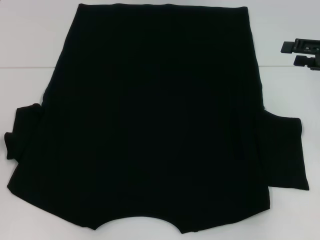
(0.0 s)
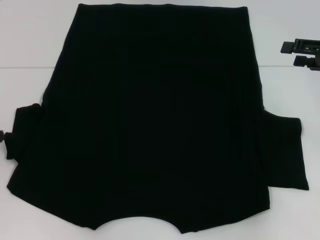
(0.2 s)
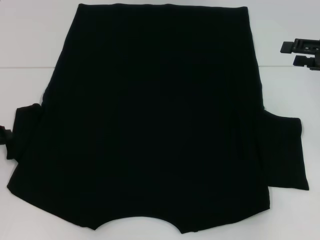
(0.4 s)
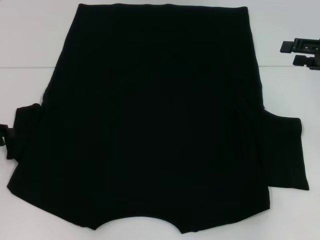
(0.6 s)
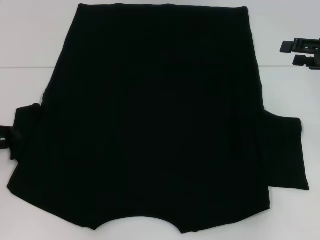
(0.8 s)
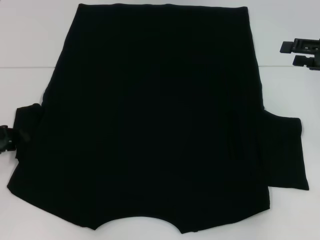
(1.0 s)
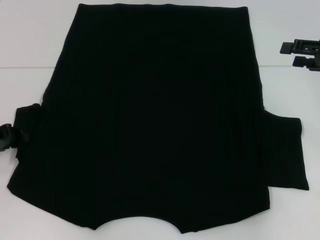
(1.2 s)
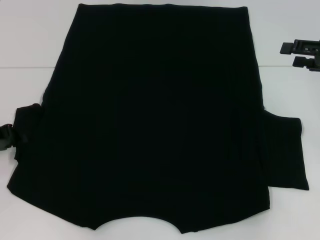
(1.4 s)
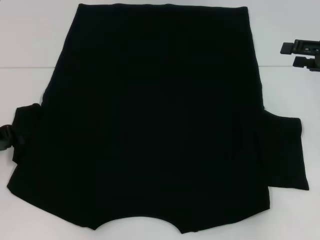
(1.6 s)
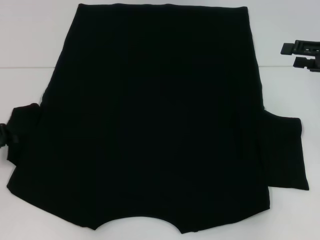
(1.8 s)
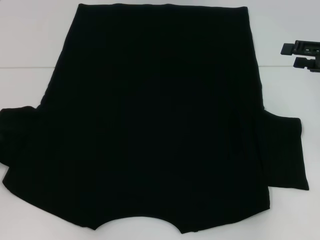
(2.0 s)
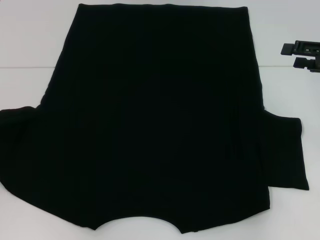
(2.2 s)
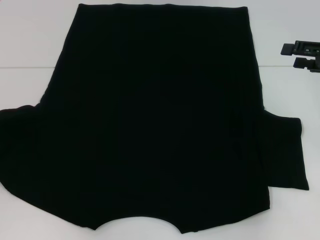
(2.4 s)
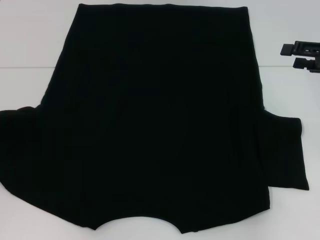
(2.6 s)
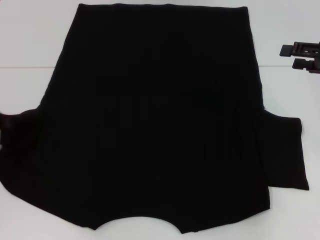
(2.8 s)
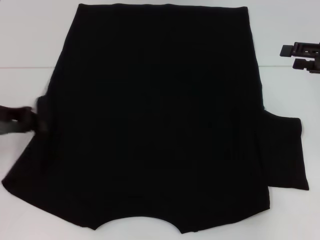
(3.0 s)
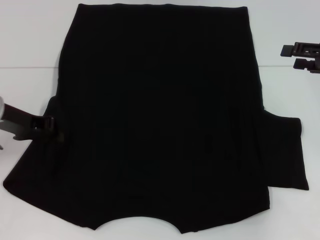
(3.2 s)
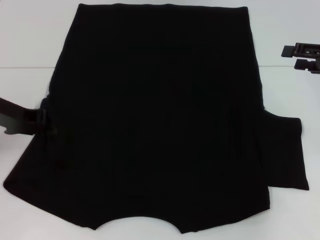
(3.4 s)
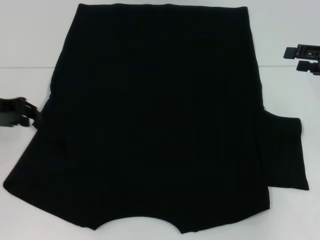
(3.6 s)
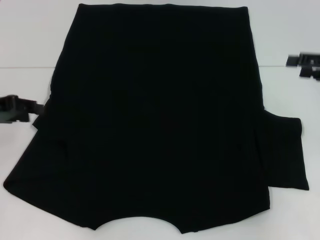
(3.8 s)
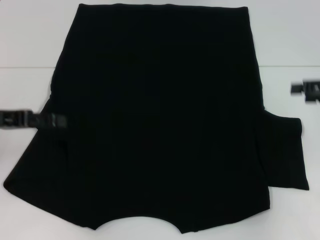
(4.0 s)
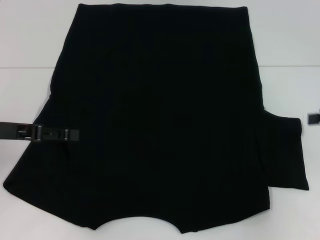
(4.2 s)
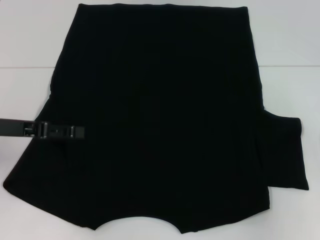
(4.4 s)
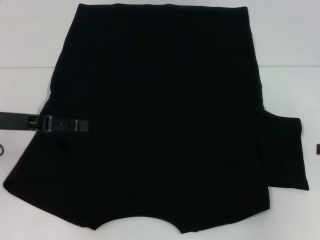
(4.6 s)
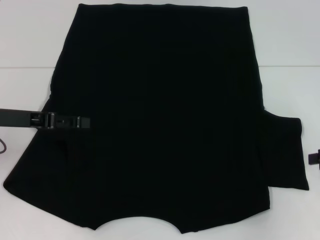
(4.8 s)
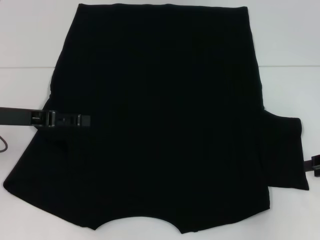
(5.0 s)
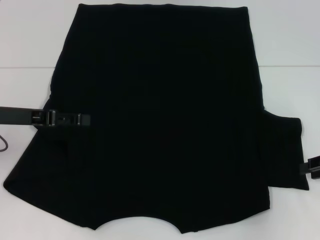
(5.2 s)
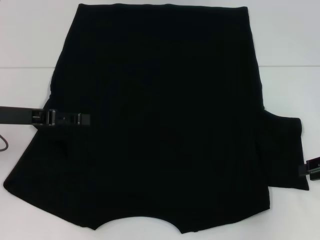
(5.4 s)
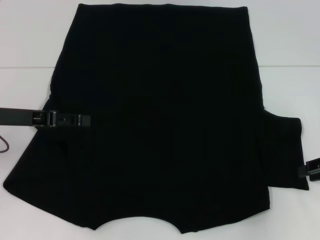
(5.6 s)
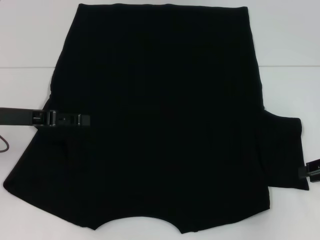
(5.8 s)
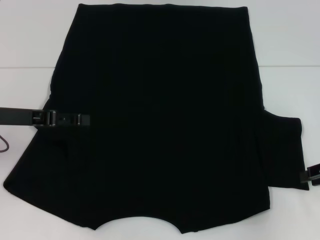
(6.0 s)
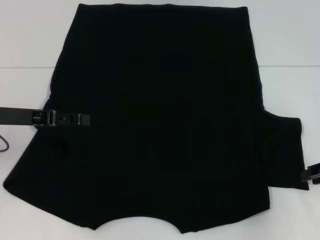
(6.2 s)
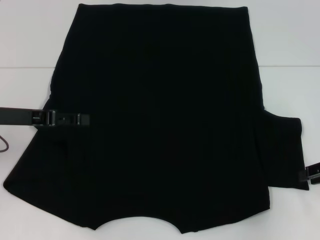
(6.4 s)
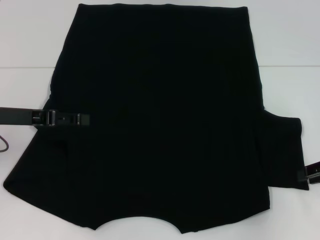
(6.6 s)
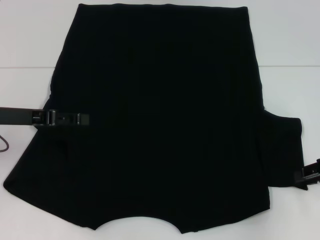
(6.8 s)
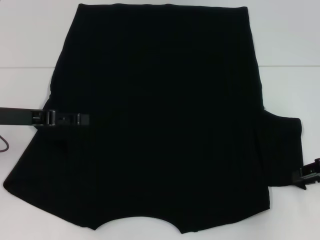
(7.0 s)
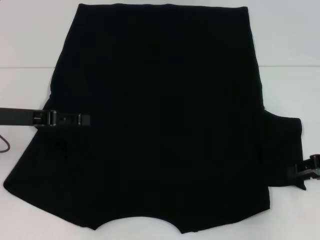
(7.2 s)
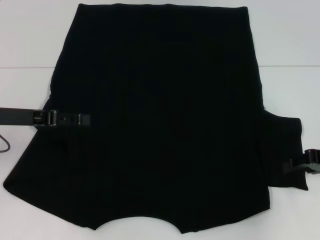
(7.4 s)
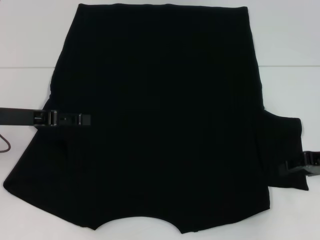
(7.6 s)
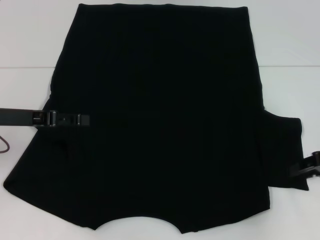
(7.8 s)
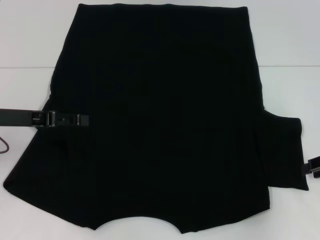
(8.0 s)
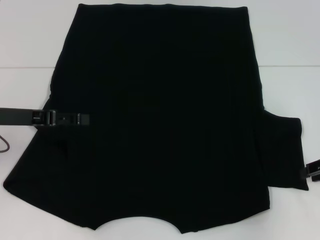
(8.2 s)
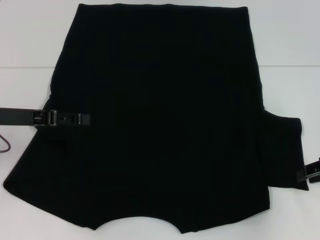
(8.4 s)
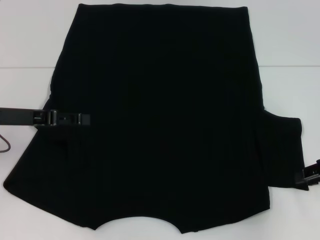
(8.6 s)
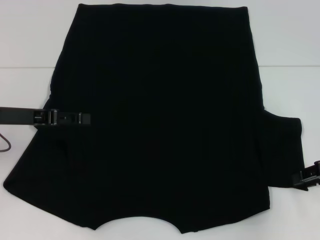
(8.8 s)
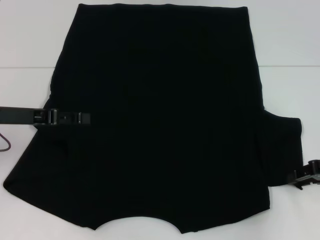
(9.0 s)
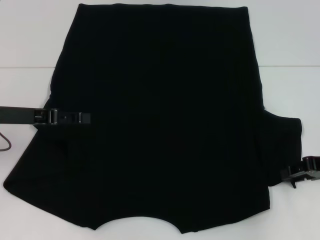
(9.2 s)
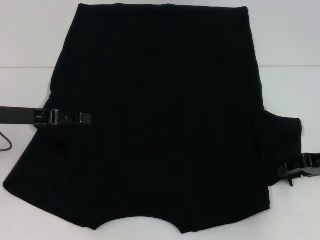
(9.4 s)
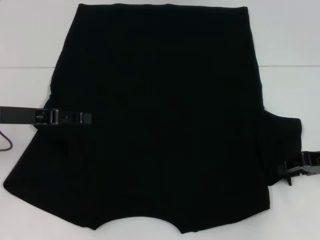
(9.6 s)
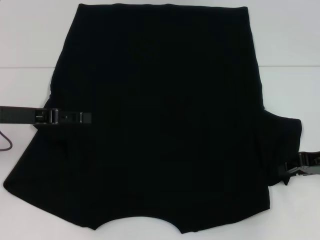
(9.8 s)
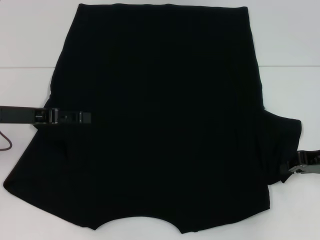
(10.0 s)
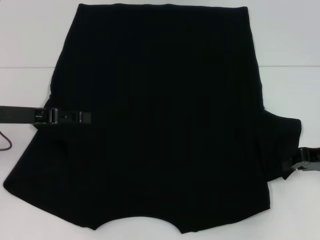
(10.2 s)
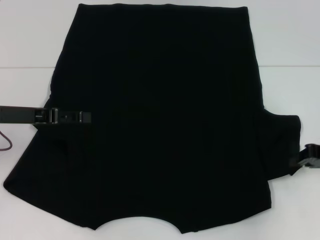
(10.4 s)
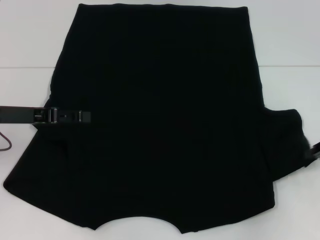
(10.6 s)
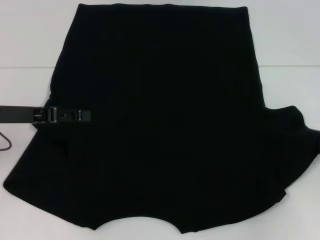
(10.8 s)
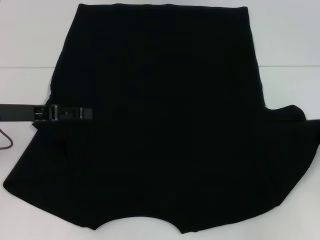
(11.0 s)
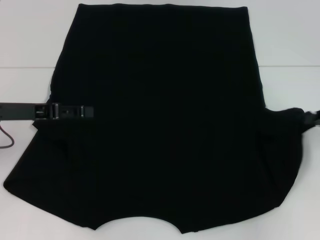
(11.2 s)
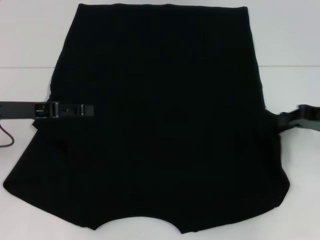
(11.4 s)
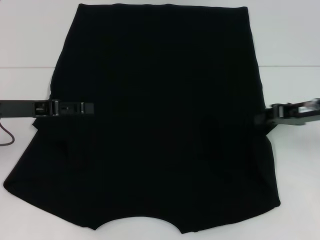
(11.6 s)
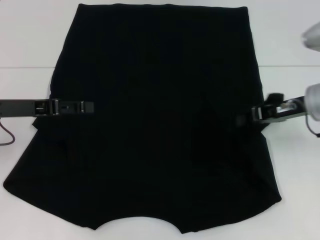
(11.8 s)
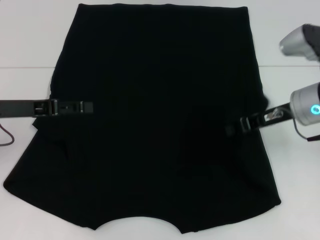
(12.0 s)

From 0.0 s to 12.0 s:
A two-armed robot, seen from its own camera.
Step, from 0.0 s to 3.6 s: Fold the bottom left sleeve with your left hand.
From 1.6 s to 3.0 s: The left gripper moves upward, some 5 cm.
From 3.0 s to 4.4 s: The right gripper goes some 10 cm backward and to the right, while the left gripper opens its fingers.
From 7.6 s to 9.0 s: The grippers stay close to where they were, moving slightly.
From 9.0 s to 10.4 s: The right gripper closes.
From 10.4 s to 12.0 s: The right gripper heads to the left and forward, covering roughly 10 cm.

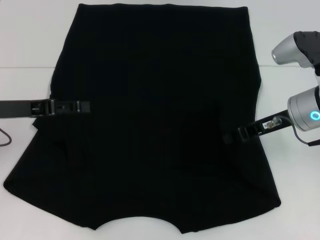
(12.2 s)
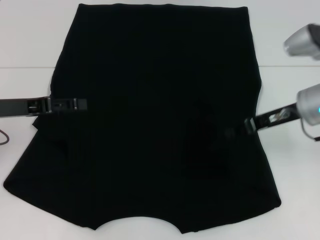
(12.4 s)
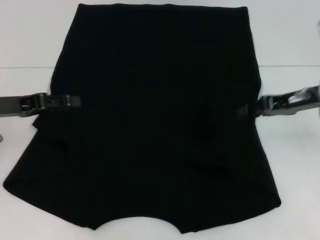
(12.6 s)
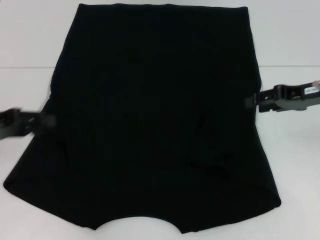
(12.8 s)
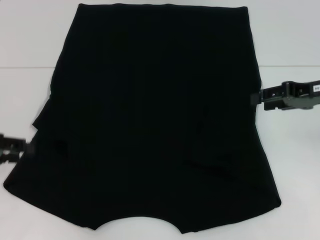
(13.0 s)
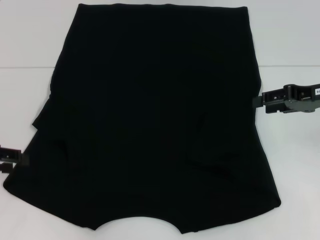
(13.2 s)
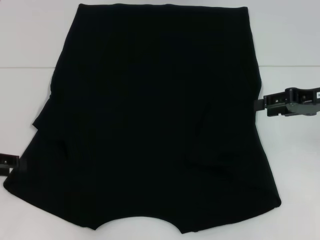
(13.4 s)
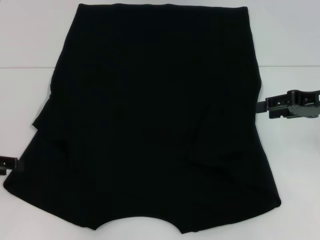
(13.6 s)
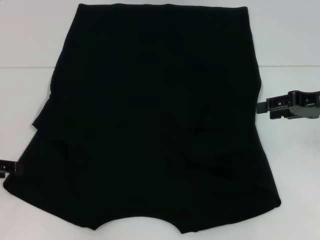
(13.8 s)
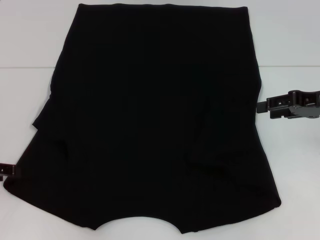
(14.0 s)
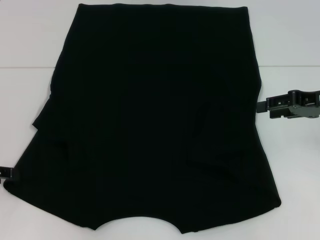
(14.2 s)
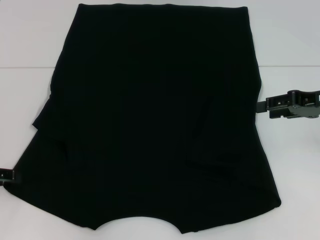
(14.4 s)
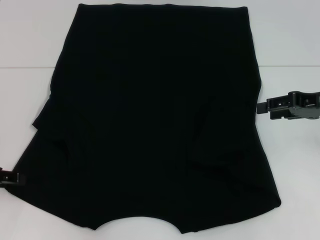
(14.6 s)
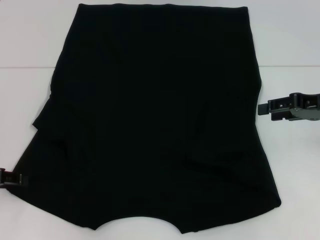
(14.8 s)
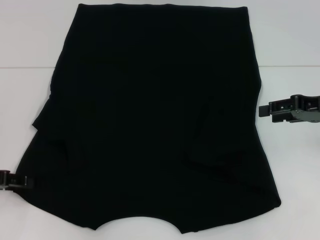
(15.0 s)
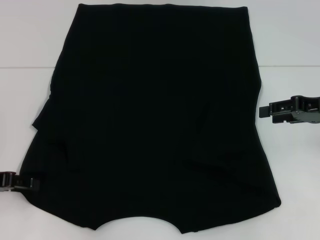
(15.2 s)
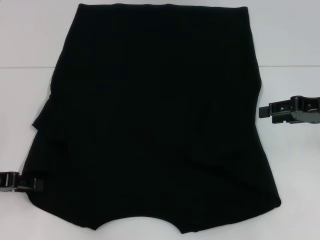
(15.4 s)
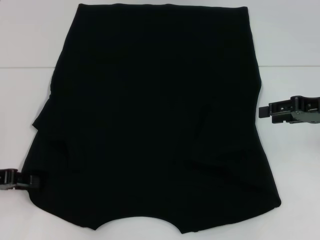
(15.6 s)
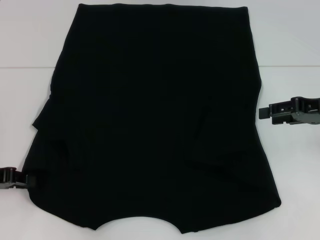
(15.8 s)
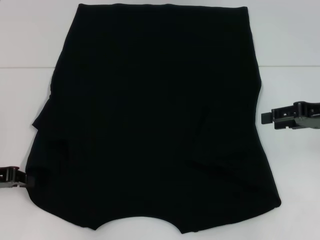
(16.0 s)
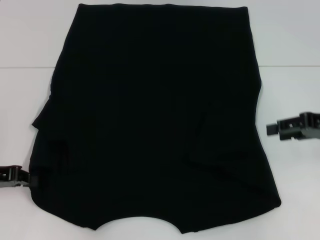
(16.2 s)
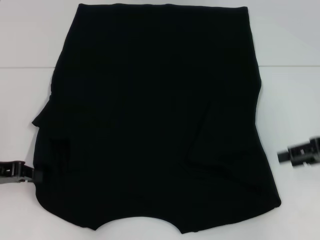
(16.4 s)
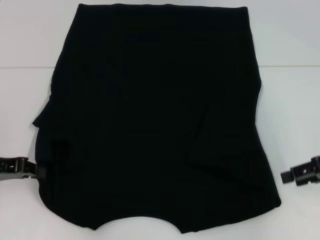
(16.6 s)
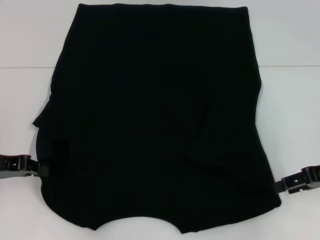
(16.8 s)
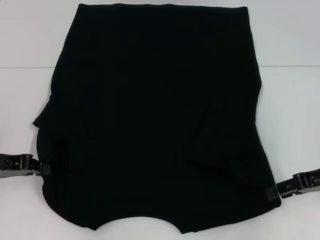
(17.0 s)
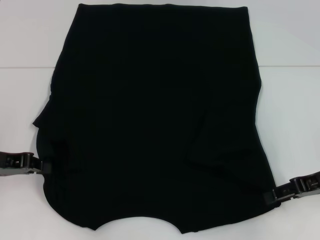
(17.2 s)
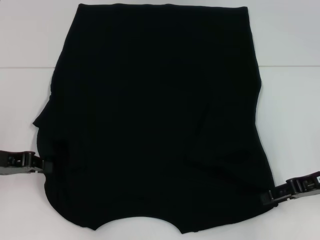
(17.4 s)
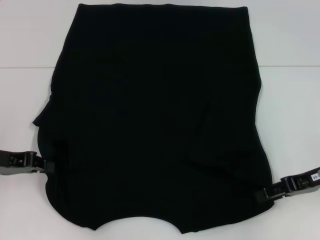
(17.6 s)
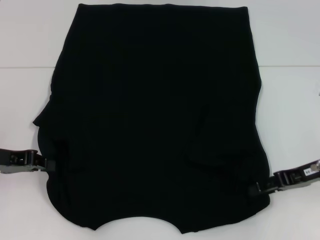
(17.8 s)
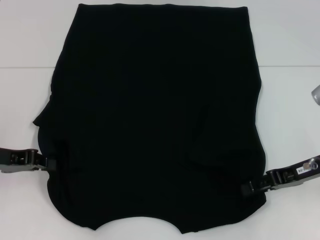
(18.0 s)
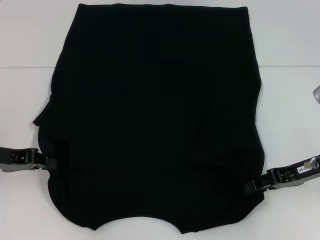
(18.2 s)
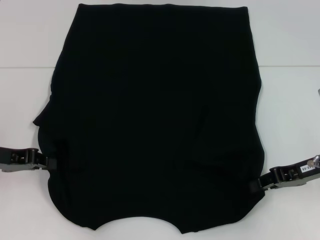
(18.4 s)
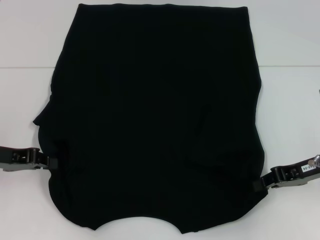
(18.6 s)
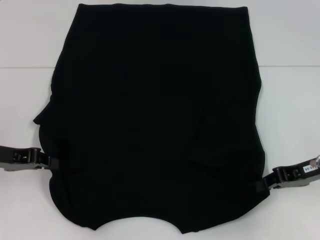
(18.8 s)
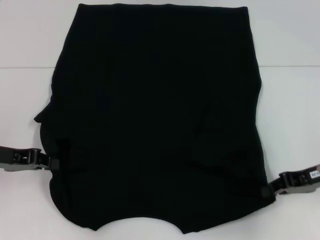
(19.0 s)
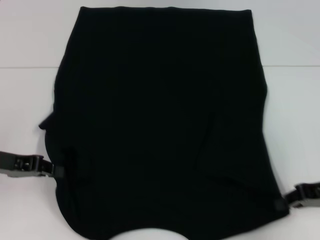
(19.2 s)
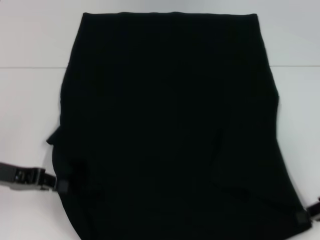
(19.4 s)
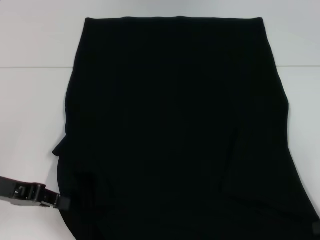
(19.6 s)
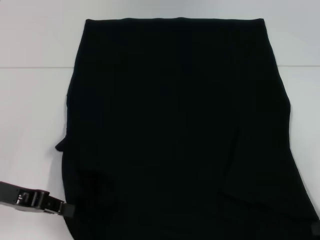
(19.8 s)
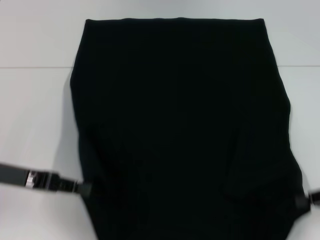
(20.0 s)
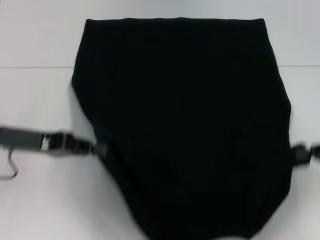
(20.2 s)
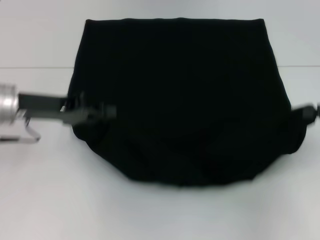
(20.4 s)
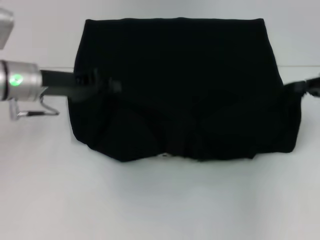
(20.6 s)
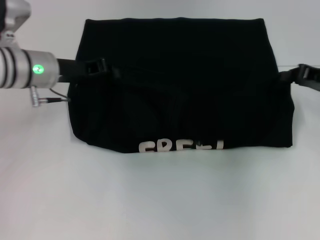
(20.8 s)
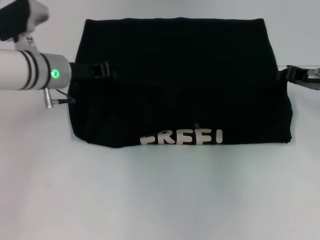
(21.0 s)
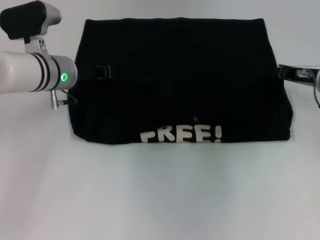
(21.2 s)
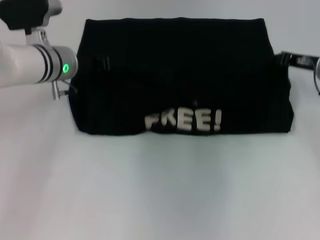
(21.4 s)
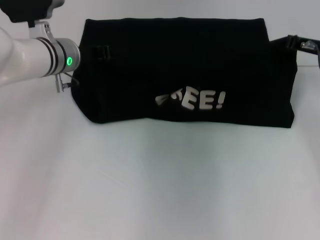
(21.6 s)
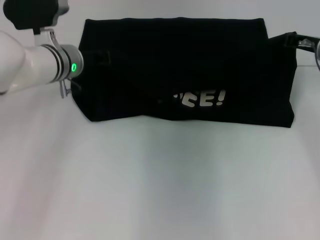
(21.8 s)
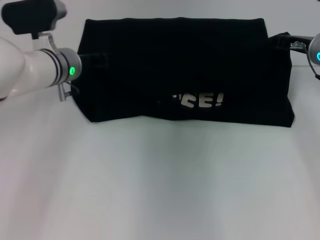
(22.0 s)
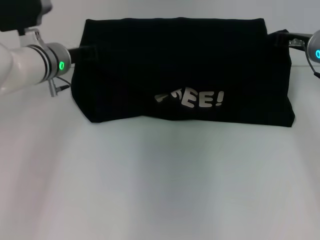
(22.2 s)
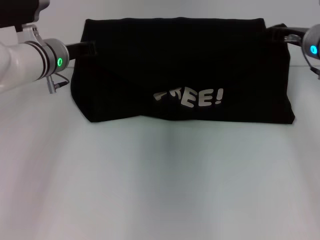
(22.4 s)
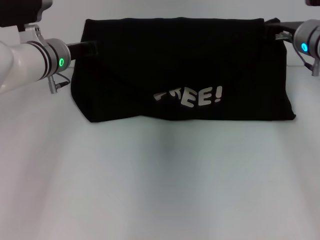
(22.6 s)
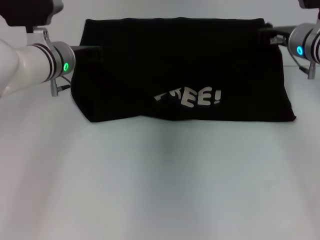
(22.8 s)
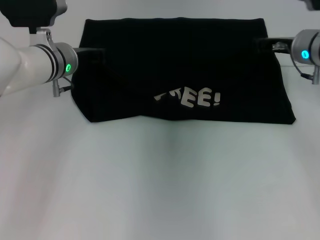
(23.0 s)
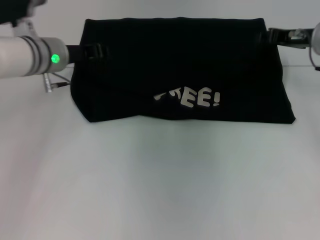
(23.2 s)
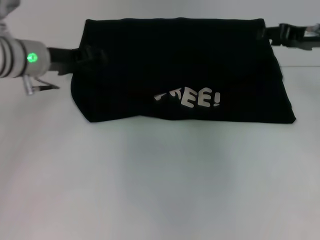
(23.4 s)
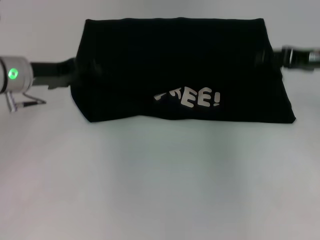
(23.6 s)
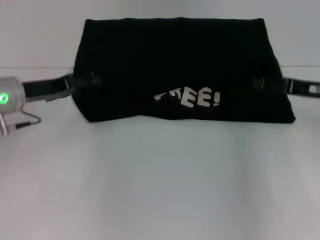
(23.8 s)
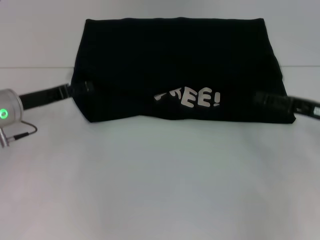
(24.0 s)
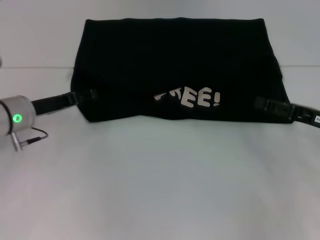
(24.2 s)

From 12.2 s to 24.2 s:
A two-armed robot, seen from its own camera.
Step, from 12.6 s to 15.8 s: Grab the bottom left corner with your left hand.
Step, from 16.0 s to 18.6 s: Grab the bottom right corner with your right hand.
Step, from 18.8 s to 23.0 s: Fold the clothes with your left hand.
Step, from 18.8 s to 23.0 s: Fold the clothes with your right hand.
From 12.2 s to 13.8 s: The right gripper shifts about 10 cm to the right, and opens; the left gripper shifts approximately 10 cm to the left and backward.
From 13.8 s to 15.2 s: There are only small adjustments of the grippers.
From 15.2 s to 16.6 s: The left gripper closes. The right gripper changes place by some 5 cm.
From 16.6 s to 18.2 s: The right gripper travels to the left by some 5 cm.
From 18.2 s to 19.8 s: The right gripper moves to the right and backward, roughly 10 cm, and closes.
From 19.8 s to 21.2 s: The left gripper shifts roughly 20 cm forward and to the right. Meanwhile the right gripper moves forward and to the left, some 20 cm.
From 21.2 s to 22.6 s: The right gripper moves some 10 cm.
From 22.6 s to 24.2 s: The left gripper travels backward, to the left and downward by approximately 10 cm, and opens its fingers. Meanwhile the right gripper heads backward, to the right and downward, covering some 20 cm, and opens its fingers.
